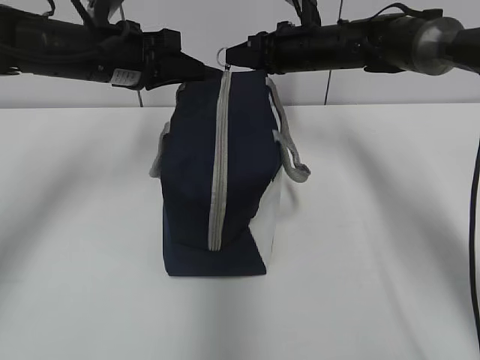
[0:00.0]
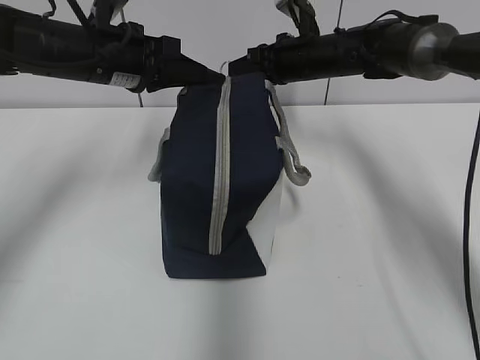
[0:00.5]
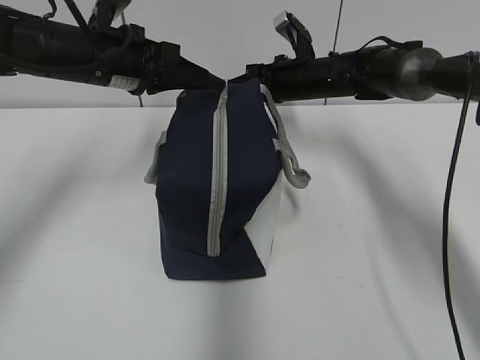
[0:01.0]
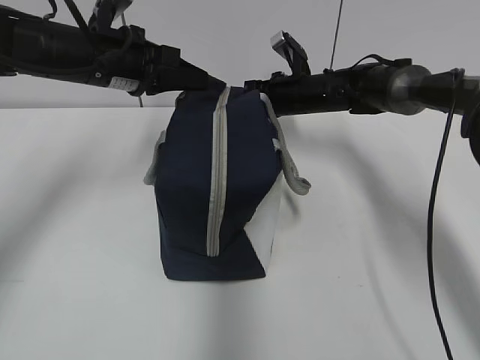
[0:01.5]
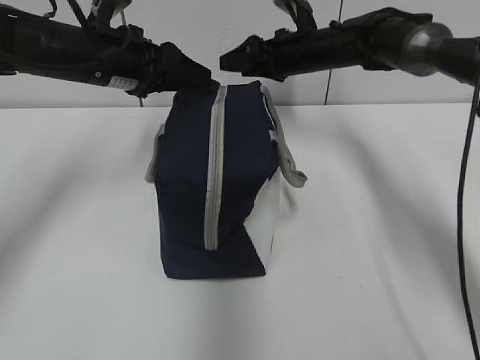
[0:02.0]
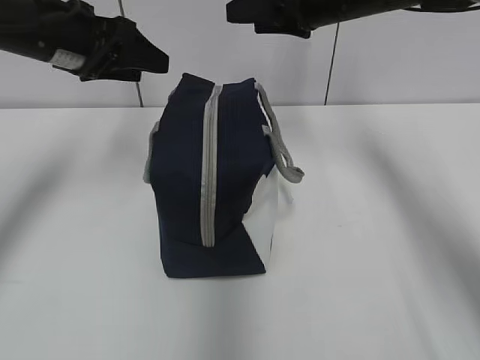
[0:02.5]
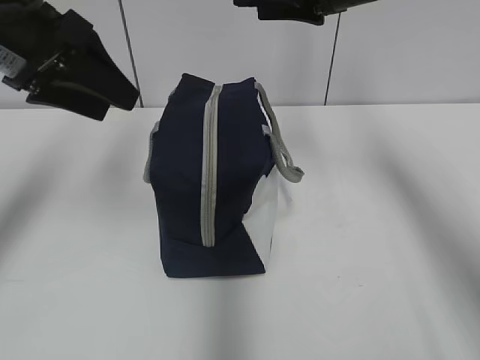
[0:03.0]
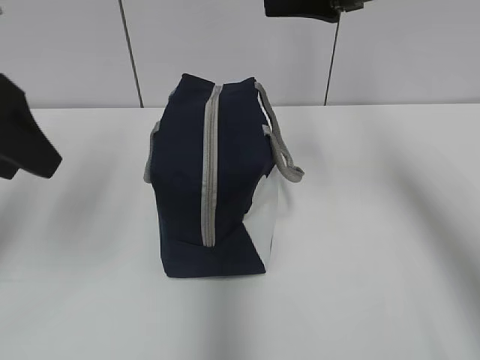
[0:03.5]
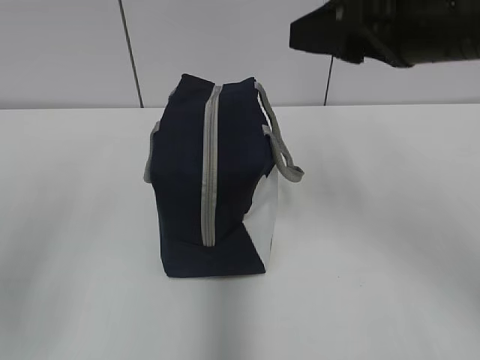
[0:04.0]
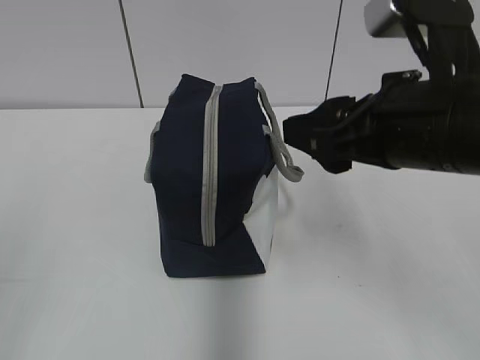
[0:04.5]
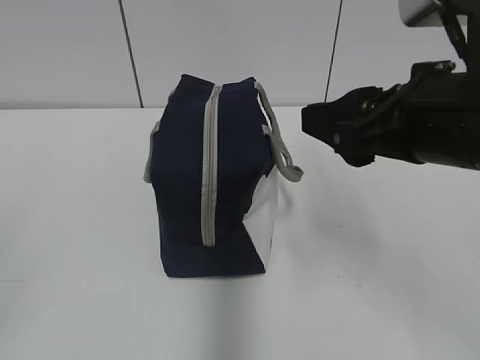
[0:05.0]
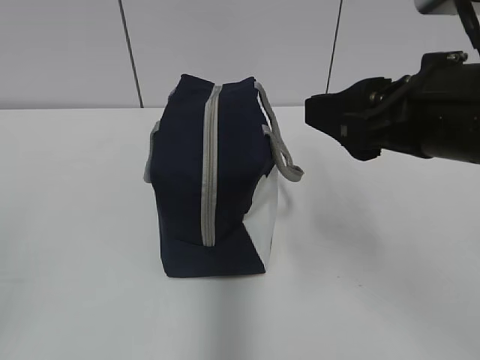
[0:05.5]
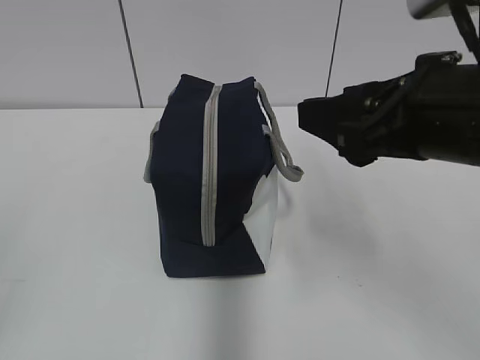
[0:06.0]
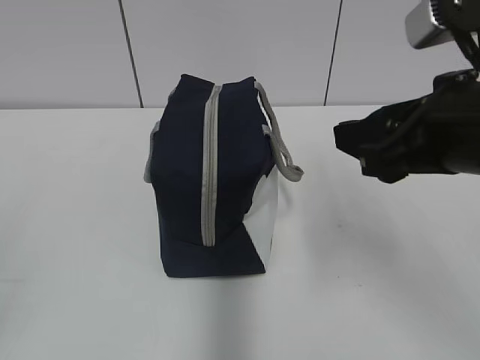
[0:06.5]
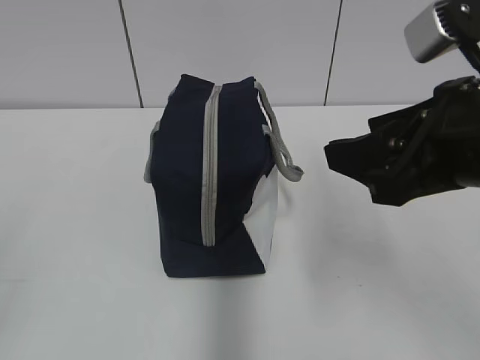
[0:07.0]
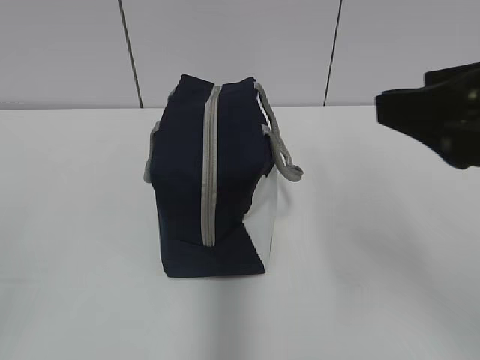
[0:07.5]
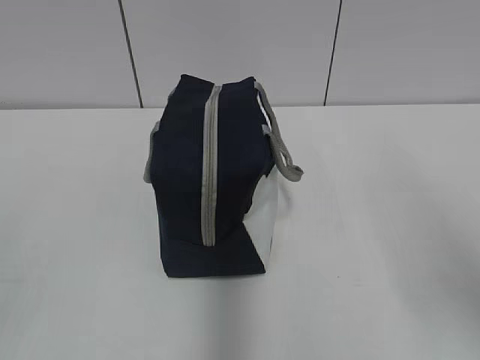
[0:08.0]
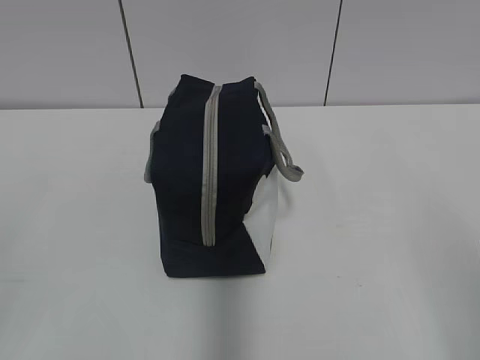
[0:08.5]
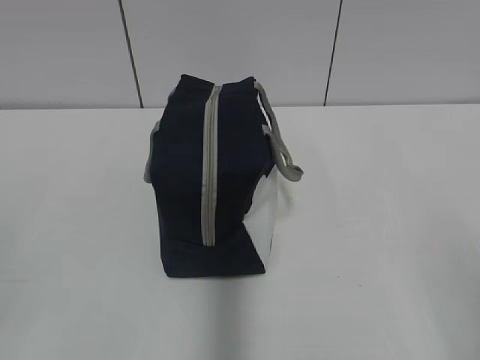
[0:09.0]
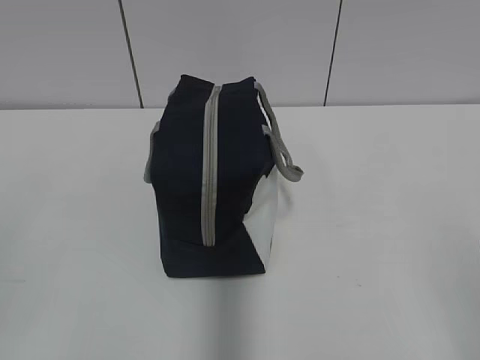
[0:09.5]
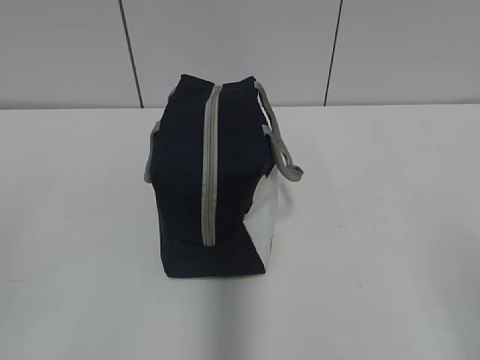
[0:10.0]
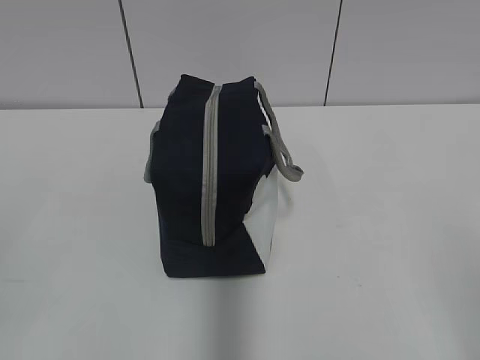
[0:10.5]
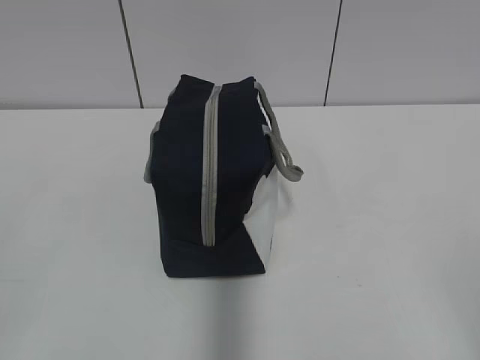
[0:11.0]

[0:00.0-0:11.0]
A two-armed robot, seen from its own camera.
0:00.0 to 0:02.0: The right gripper moves some 10 cm downward and comes back, and opens up. Meanwhile the left gripper opens its fingers.
0:02.0 to 0:03.5: The left gripper goes about 20 cm backward, to the left and upward, while the right gripper moves backward and upward, approximately 25 cm.
0:03.5 to 0:05.5: Both grippers travel together backward, about 20 cm.
0:05.5 to 0:07.5: The right gripper moves some 5 cm.
0:07.5 to 0:09.0: The right gripper goes some 15 cm backward and to the right.

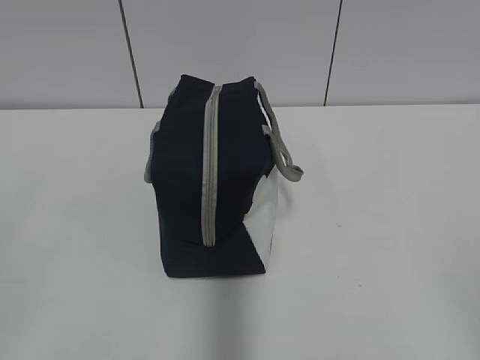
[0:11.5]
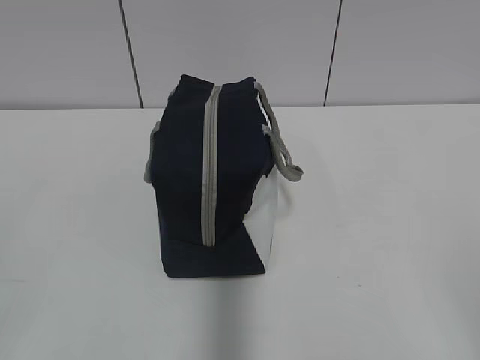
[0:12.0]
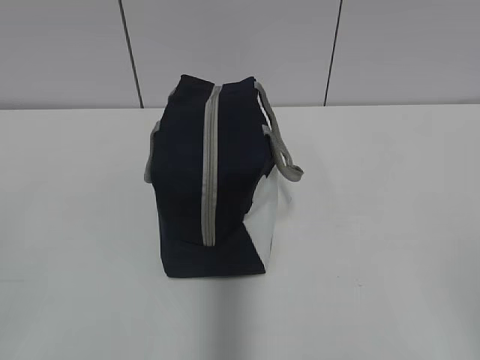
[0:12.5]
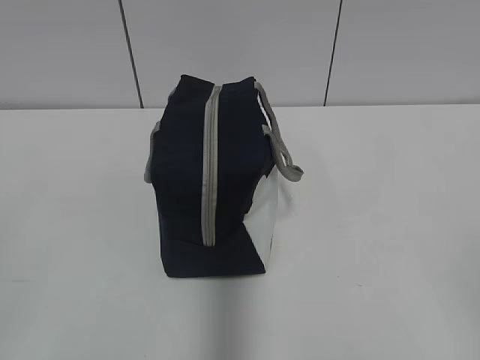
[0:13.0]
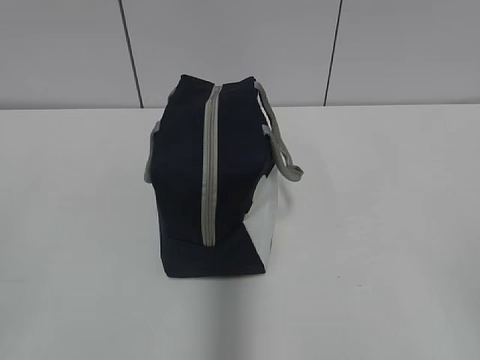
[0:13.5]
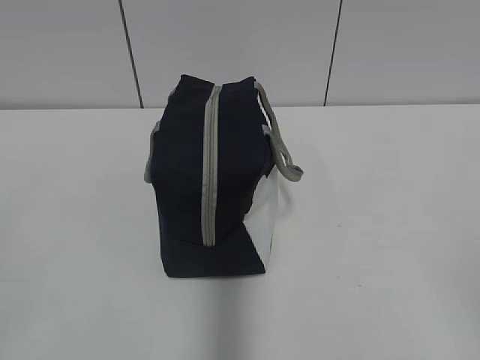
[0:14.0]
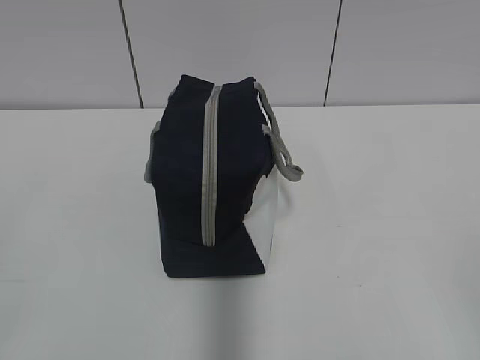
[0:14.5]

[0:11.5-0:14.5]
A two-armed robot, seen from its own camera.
0:13.0 to 0:14.5: Neither gripper changes place.
